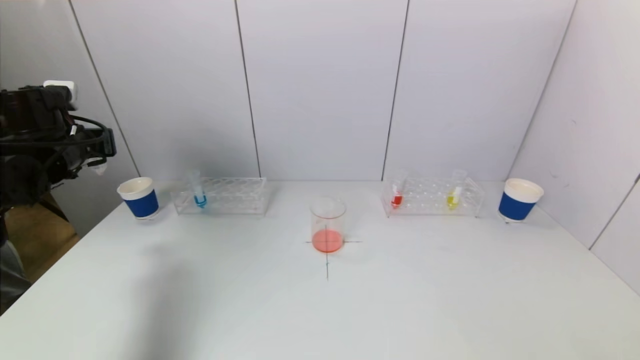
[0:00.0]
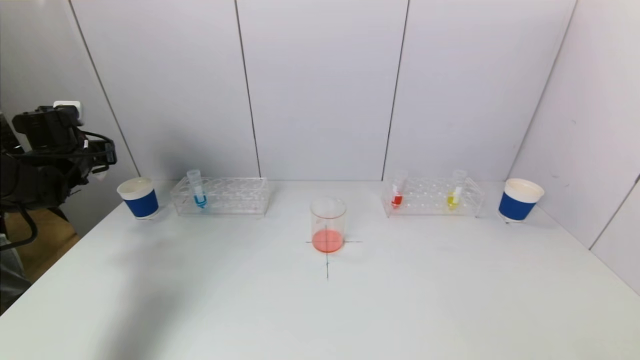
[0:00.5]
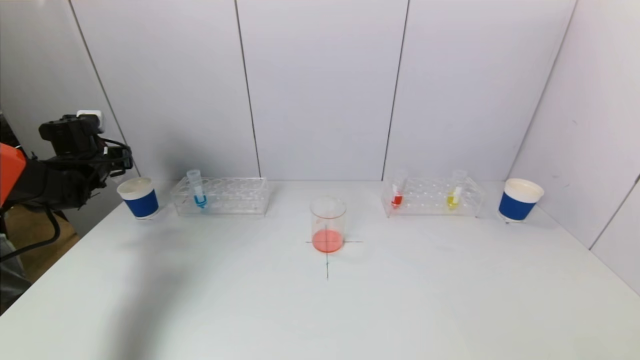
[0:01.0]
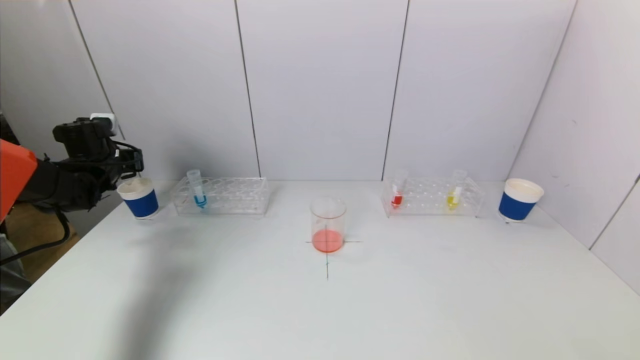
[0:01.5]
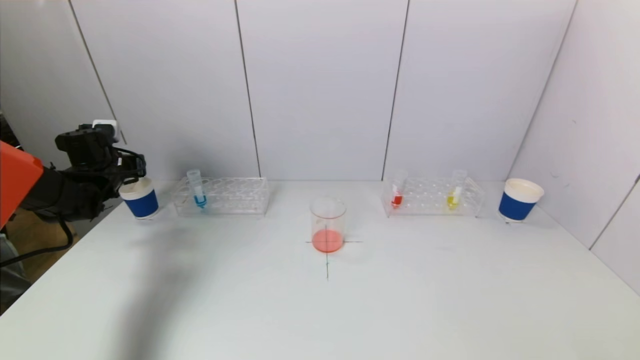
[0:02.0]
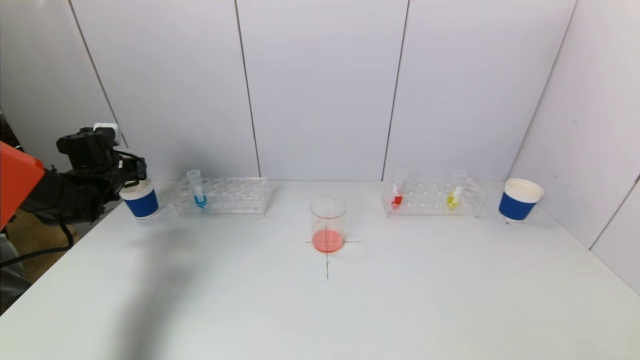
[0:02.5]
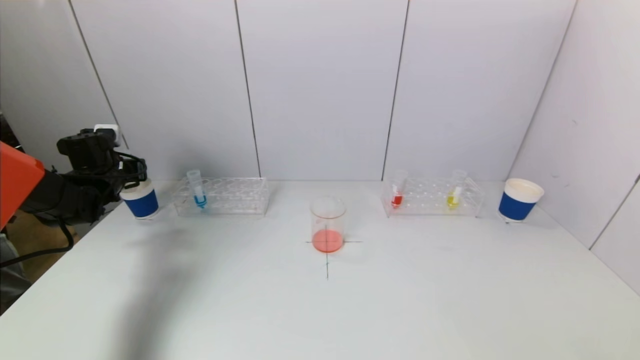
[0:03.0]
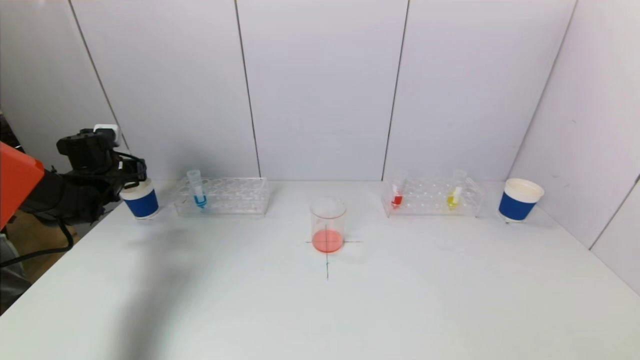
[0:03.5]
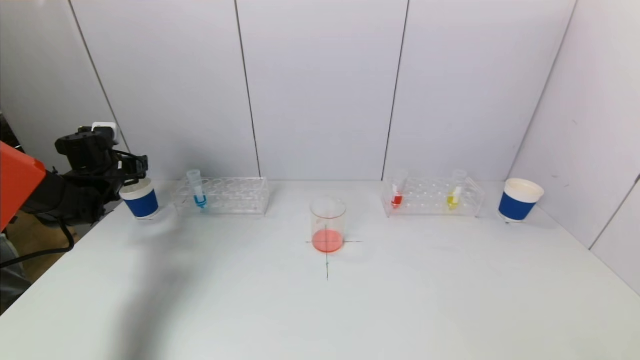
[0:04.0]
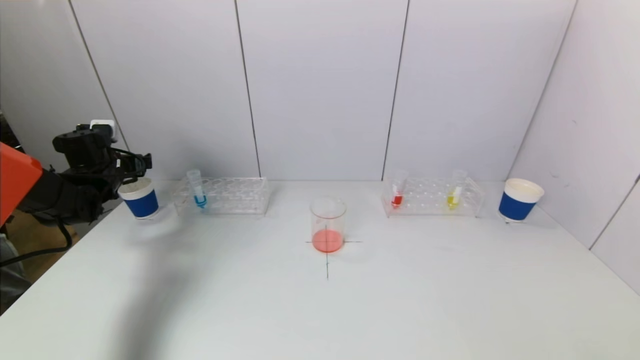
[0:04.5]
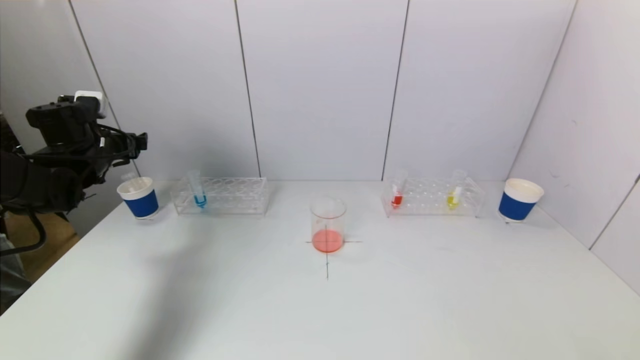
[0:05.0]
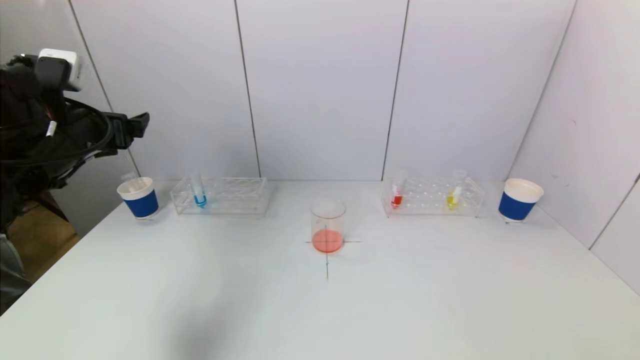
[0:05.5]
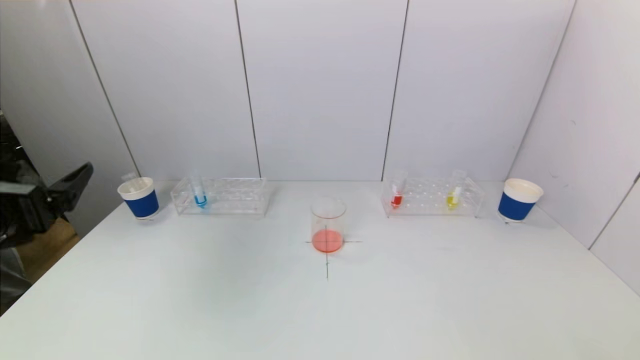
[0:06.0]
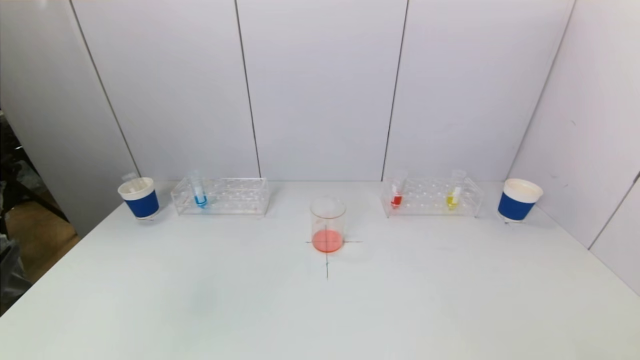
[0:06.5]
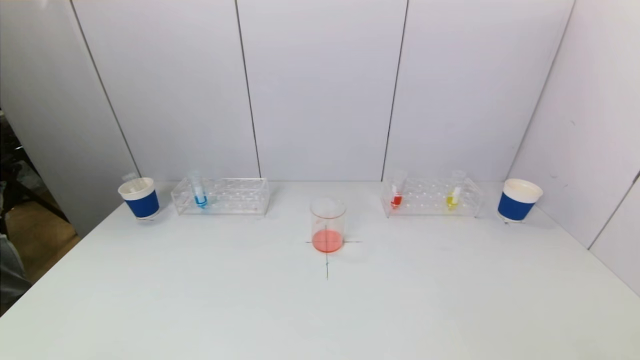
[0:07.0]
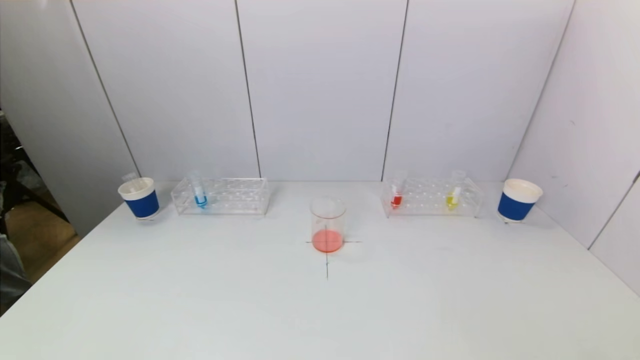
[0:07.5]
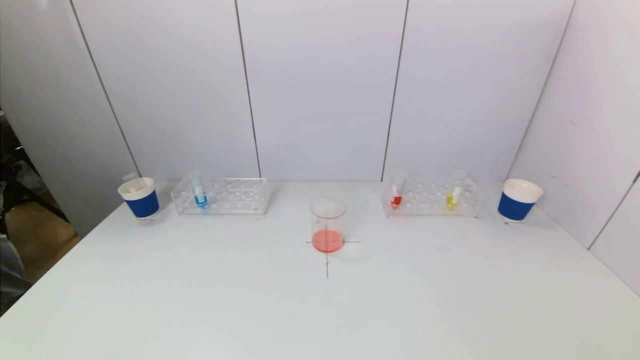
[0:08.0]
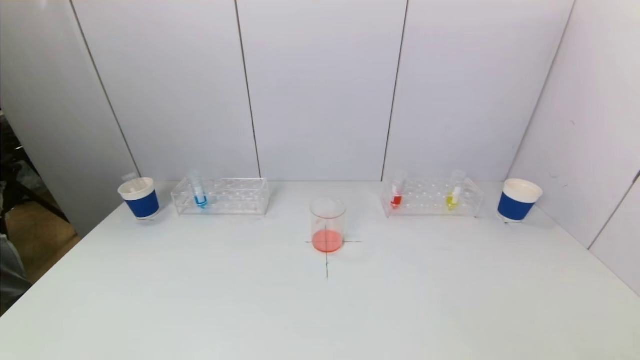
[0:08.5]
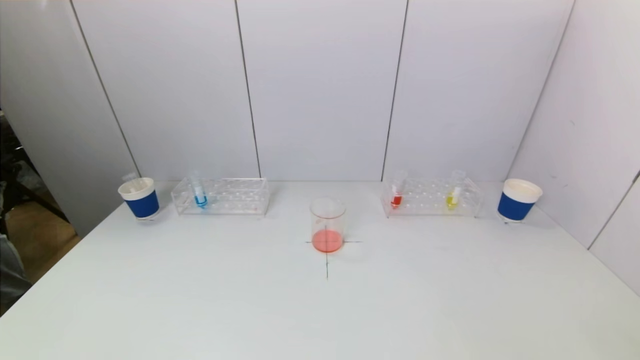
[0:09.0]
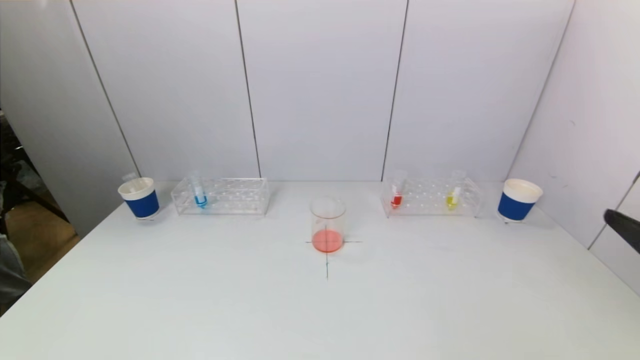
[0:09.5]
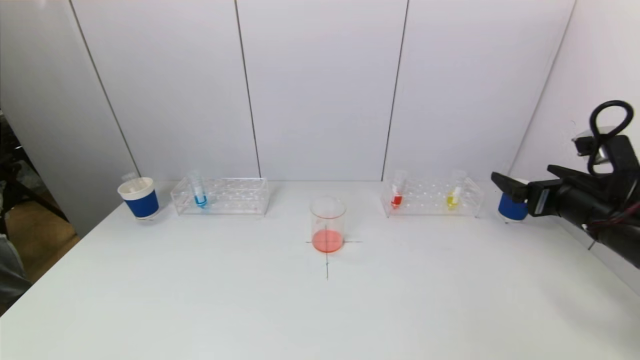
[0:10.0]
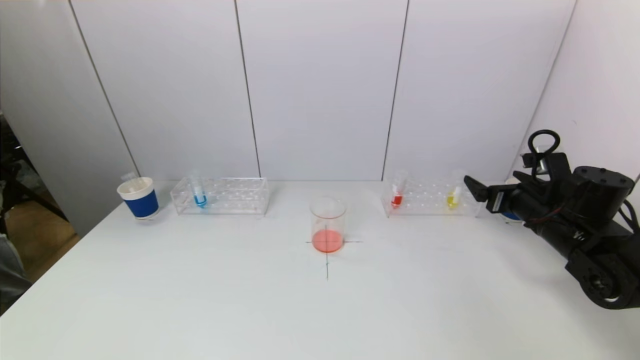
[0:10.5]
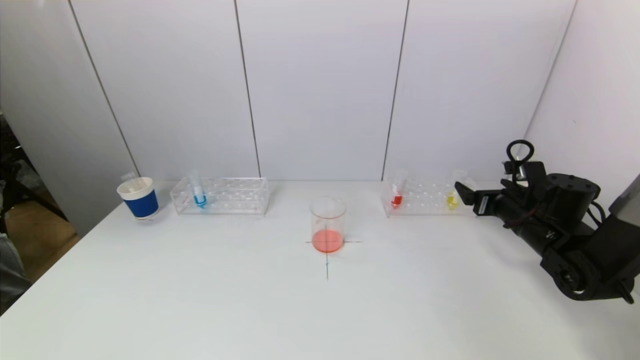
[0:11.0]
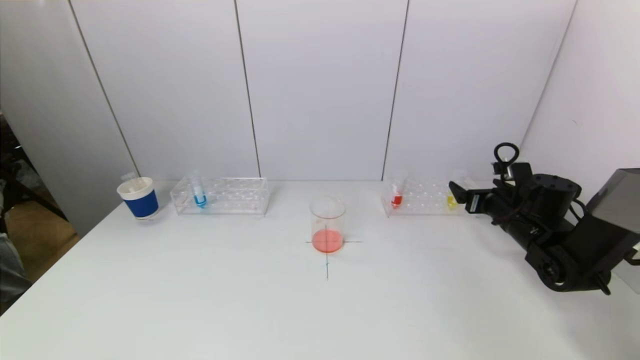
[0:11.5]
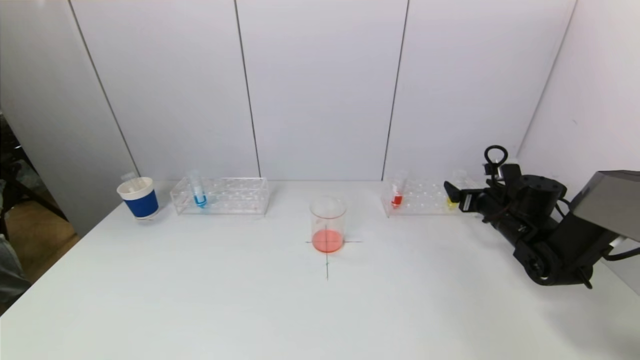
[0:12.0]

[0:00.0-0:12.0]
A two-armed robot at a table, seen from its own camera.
Task of the whole recording: pick up a test tube with pigment on left test tube rack and a test tube with pigment on right test tube rack by grippers and pour them into the beaker.
Step, 0:00.0 to 0:04.0: Place the test tube into the paper cup with the left gripper.
0:00.0 to 0:02.0: The left gripper travels downward and forward by some 10 cm.
0:02.0 to 0:04.0: The left gripper opens up.
0:04.0 to 0:06.0: The left gripper moves backward, about 30 cm.
0:06.0 to 0:08.0: The left gripper travels downward and backward by approximately 25 cm.
0:08.0 to 0:10.0: The right gripper goes approximately 30 cm forward.
0:10.0 to 0:12.0: The right gripper shifts roughly 20 cm forward and downward.

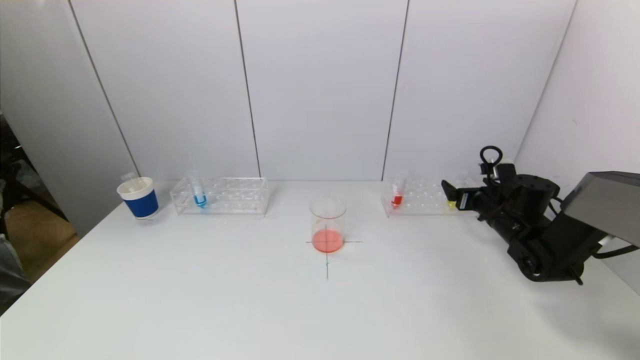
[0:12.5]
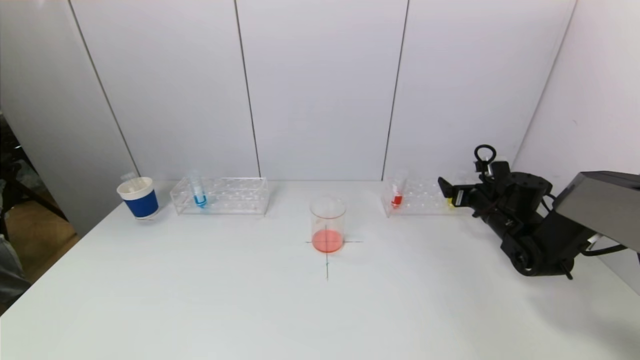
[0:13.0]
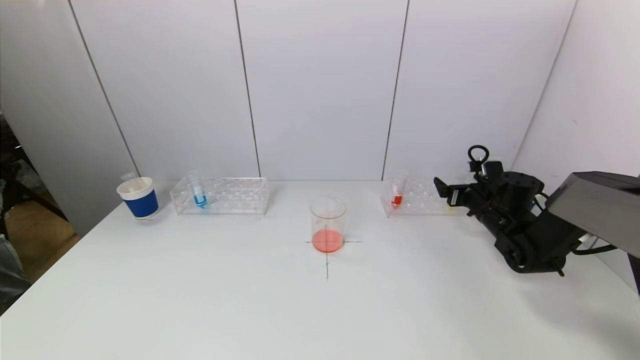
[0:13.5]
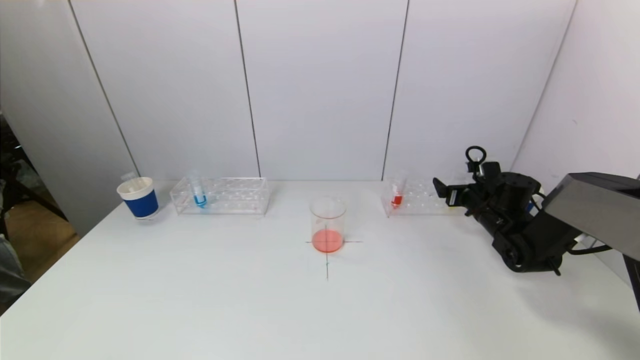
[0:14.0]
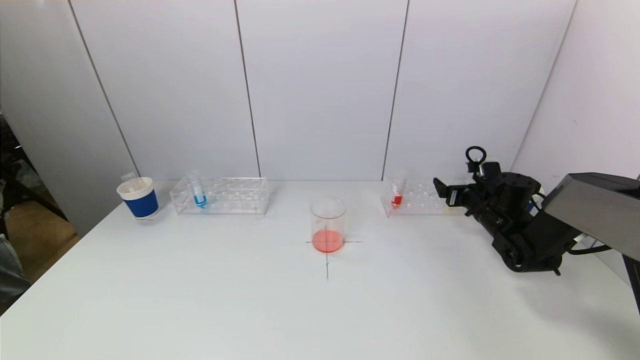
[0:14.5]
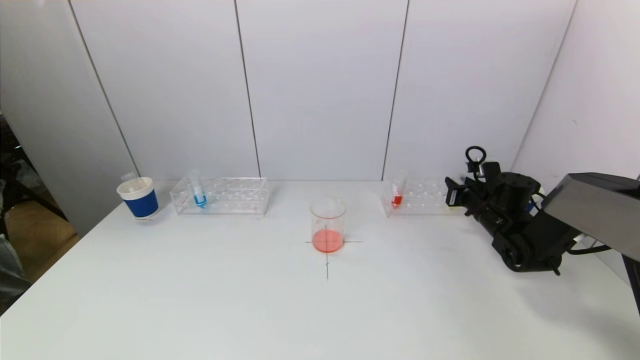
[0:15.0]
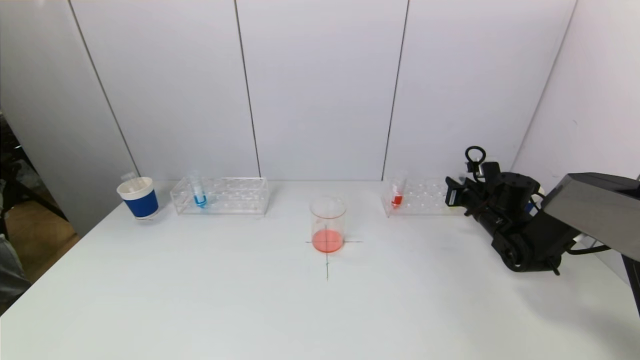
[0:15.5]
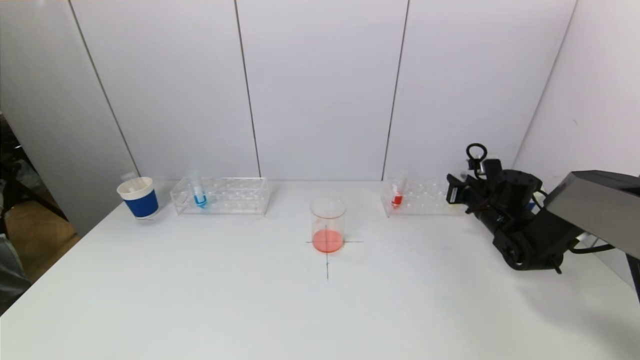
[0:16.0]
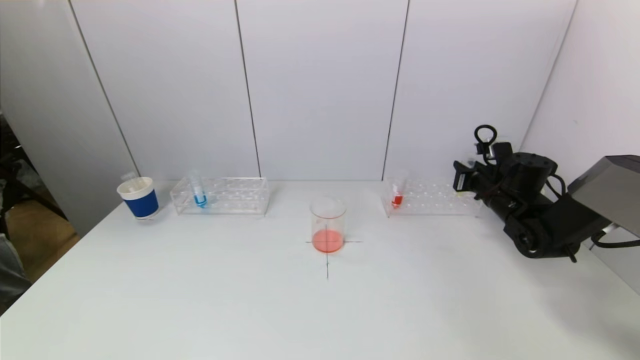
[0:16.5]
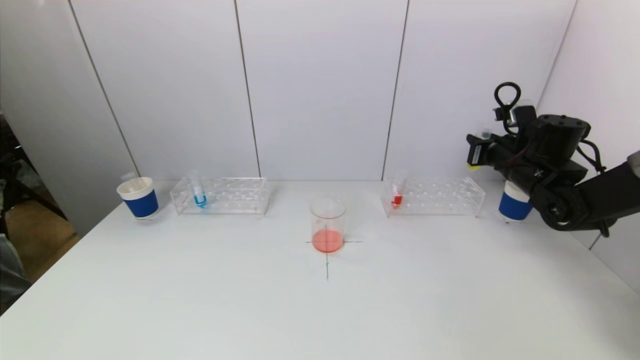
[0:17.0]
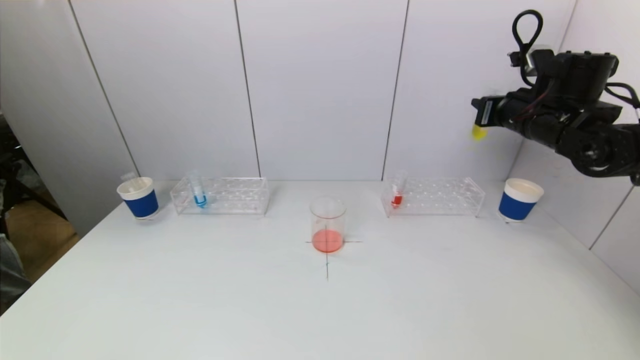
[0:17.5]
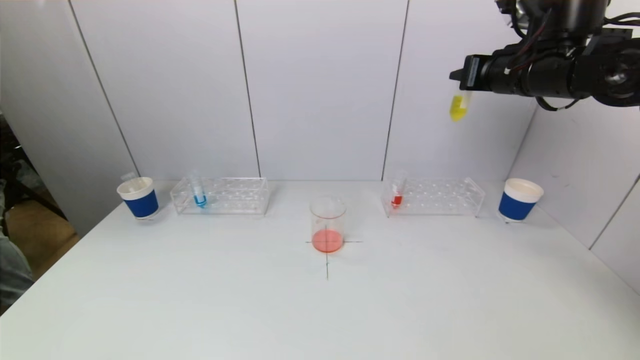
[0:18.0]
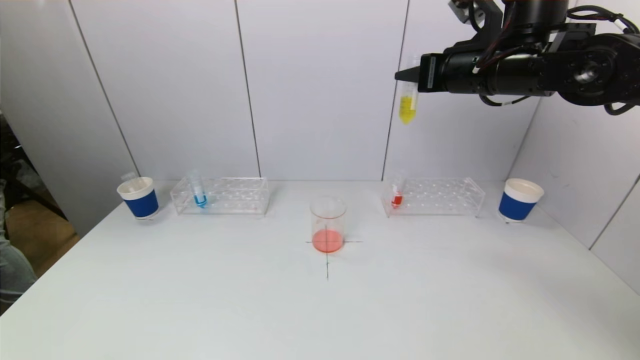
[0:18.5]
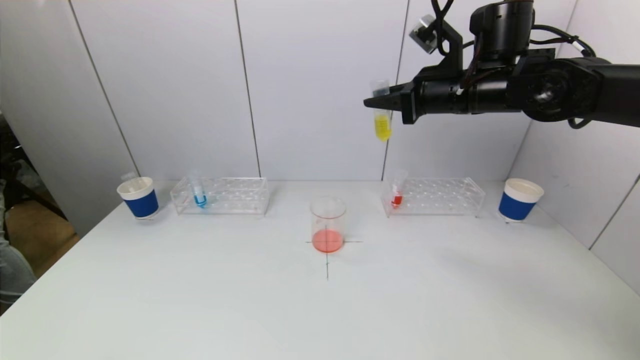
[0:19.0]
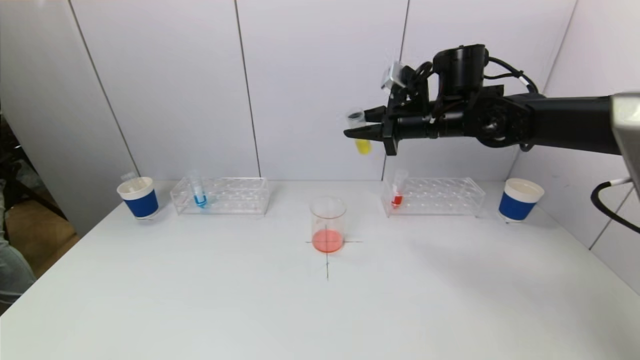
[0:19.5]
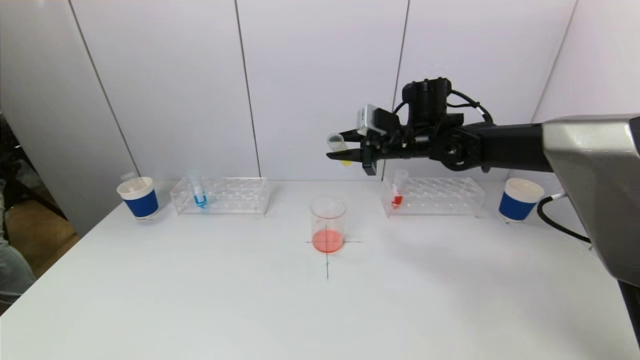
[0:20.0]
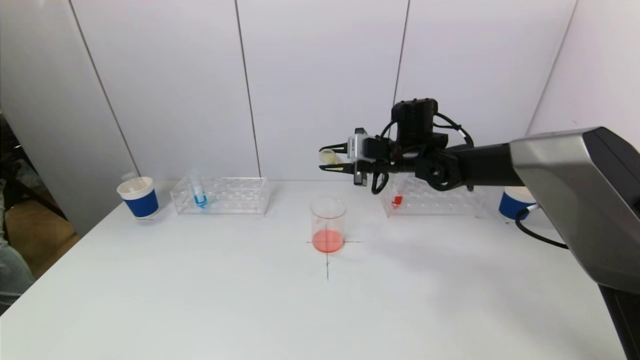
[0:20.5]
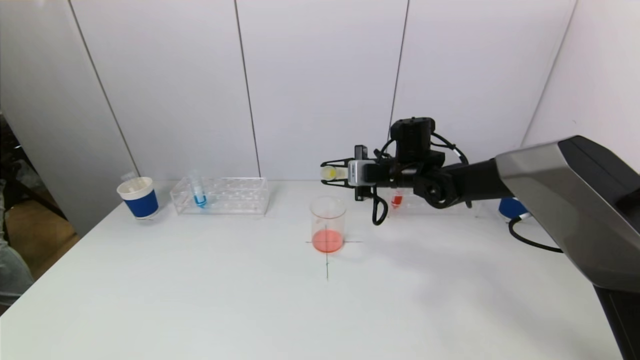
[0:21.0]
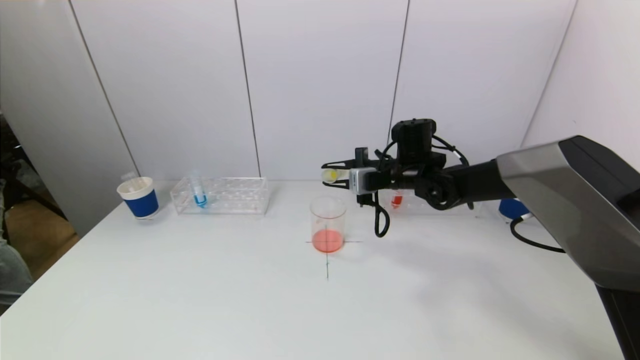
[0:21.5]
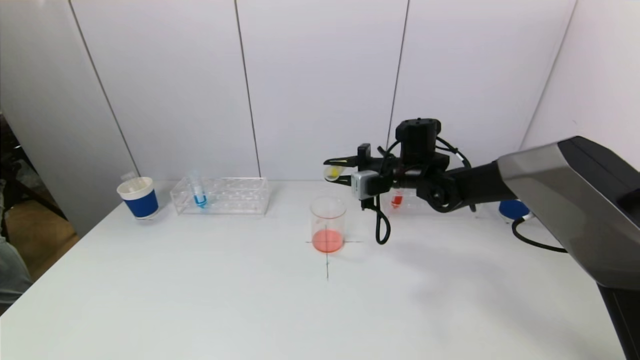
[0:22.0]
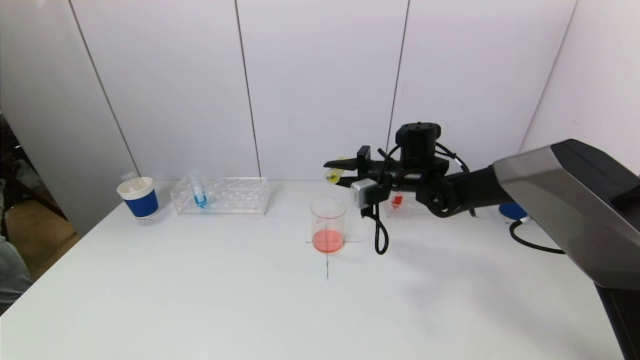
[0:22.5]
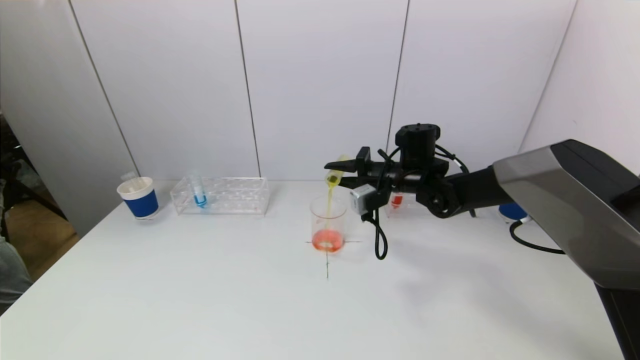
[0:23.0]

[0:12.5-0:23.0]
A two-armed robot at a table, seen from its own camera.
Task of the whole recording: pick up a test tube with pigment on left test tube rack and a test tube with pigment on right test tube rack by grippers and pour them into the beaker.
Step, 0:12.5 to 0:15.0: Grasp the yellow reagent with the right gripper.
0:12.5 to 0:14.5: There are only small adjustments of the grippers.
0:14.5 to 0:16.5: The right gripper closes.
0:16.5 to 0:19.0: The right gripper travels upward and to the left by roughly 25 cm.
0:19.0 to 0:21.0: The right gripper shifts about 15 cm downward.
